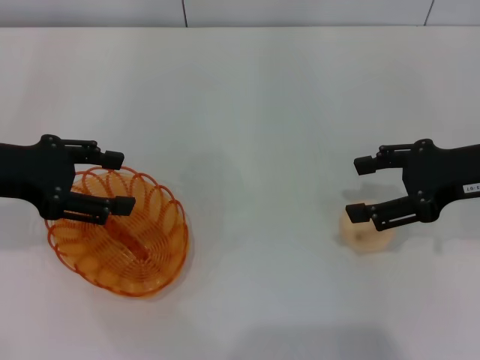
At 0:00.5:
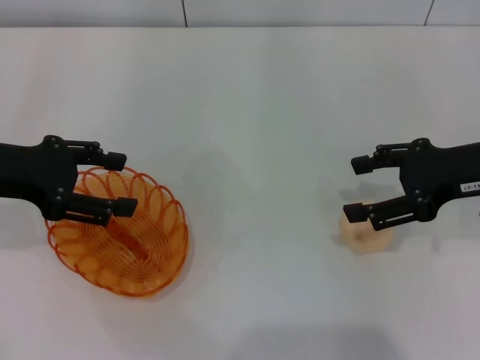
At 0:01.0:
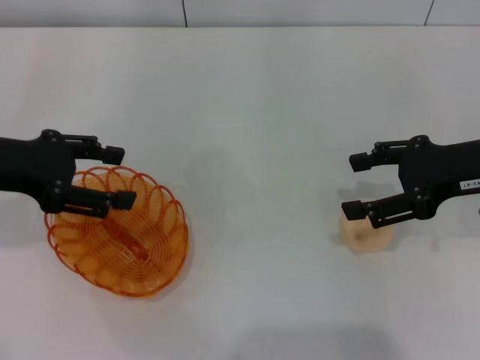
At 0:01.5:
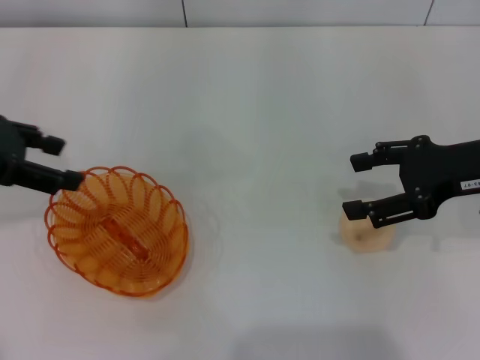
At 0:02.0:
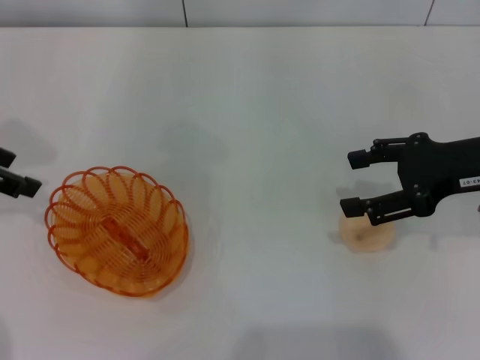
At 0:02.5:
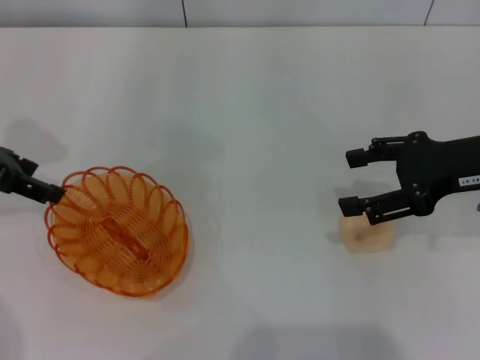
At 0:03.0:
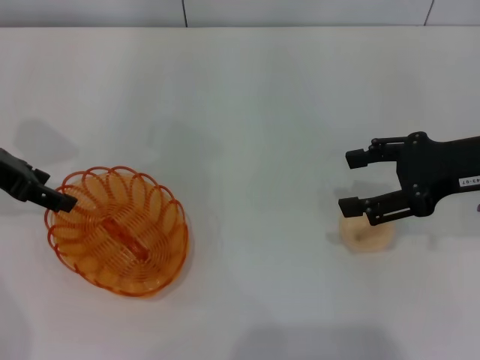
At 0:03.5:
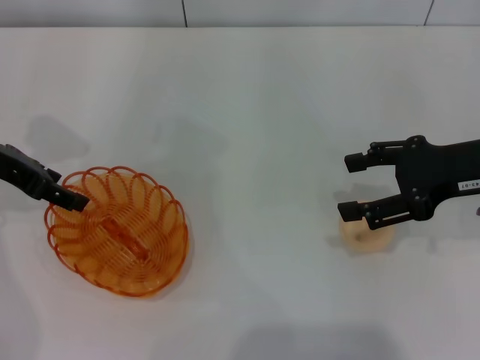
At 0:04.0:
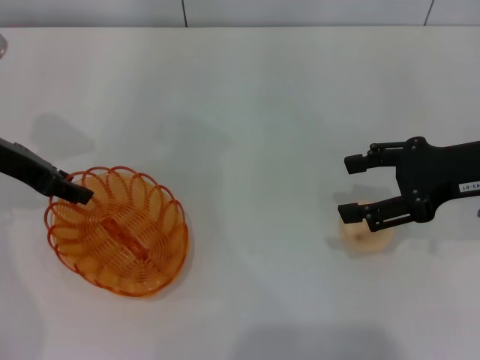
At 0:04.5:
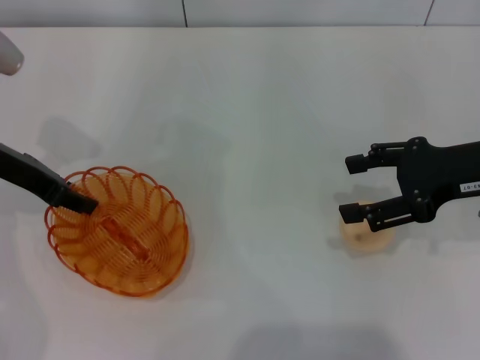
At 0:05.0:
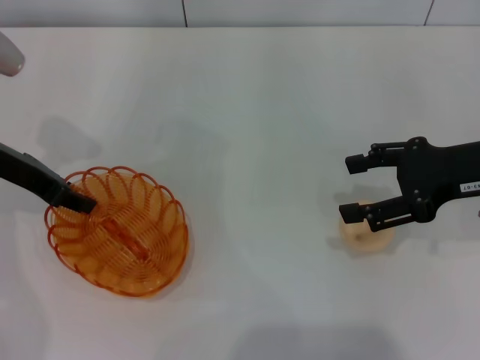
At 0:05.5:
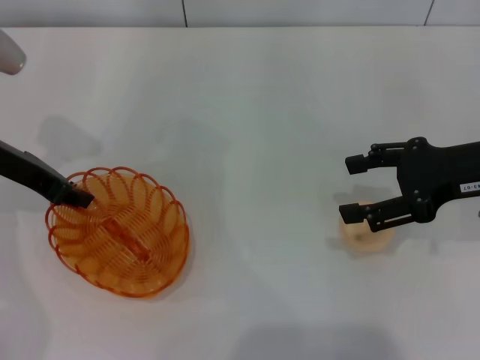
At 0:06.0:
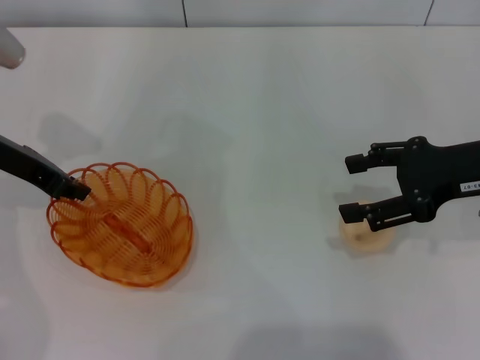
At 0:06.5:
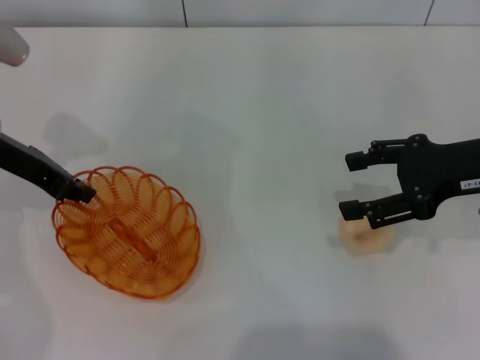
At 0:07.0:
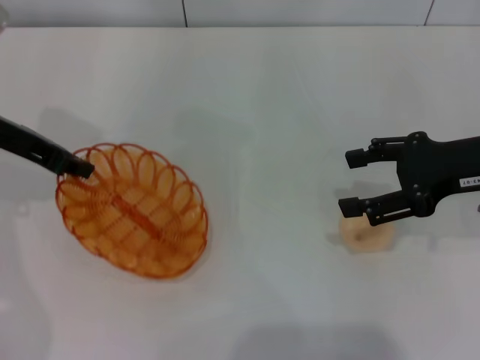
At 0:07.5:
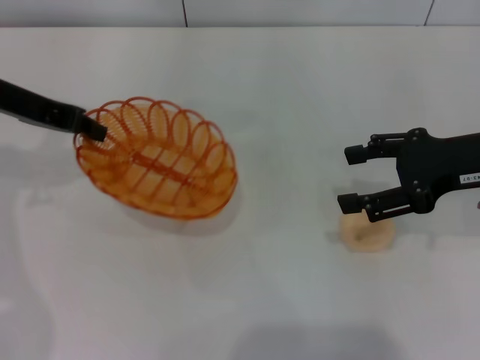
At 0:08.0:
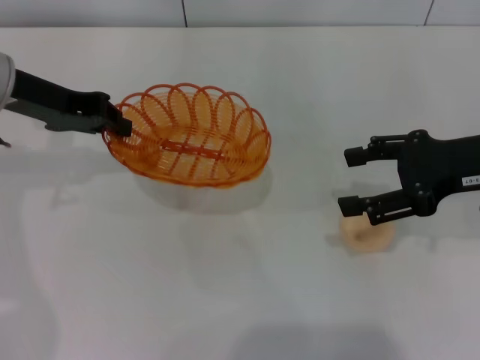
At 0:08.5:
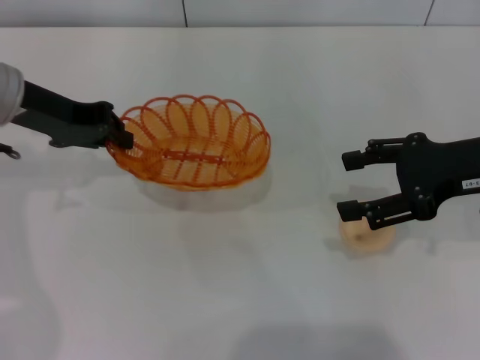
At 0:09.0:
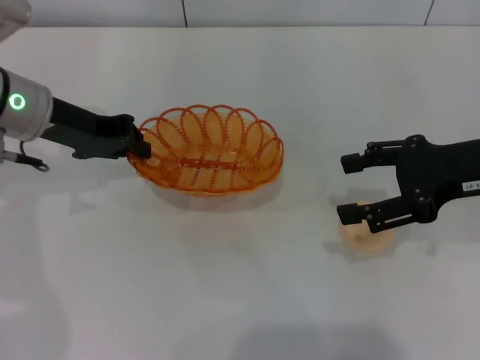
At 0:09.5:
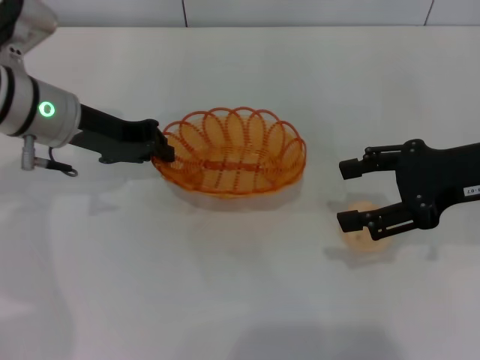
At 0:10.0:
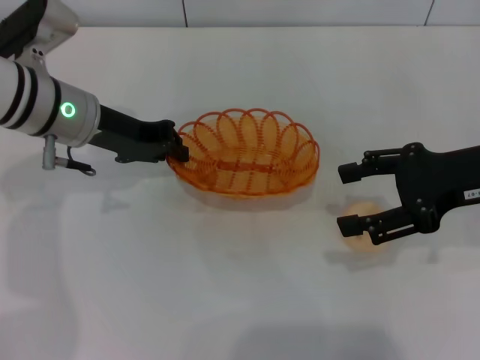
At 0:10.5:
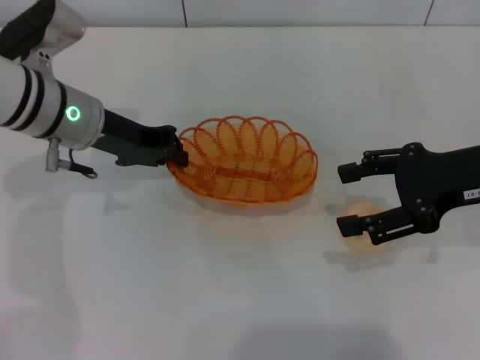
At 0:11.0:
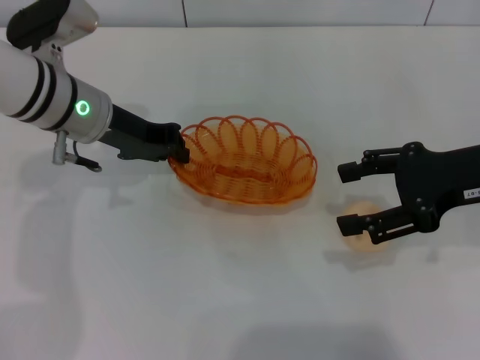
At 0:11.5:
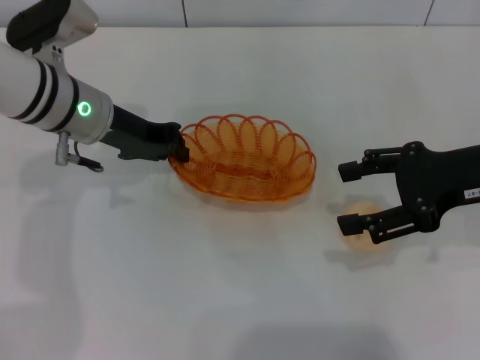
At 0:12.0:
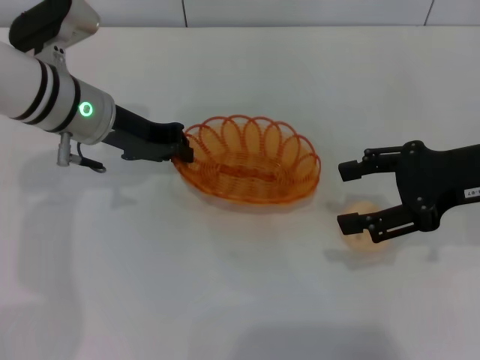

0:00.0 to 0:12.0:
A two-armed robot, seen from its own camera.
Step, 0:00.0 to 0:07.0: Pick up the basket with the left gripper.
0:00.0 to 0:02.0: The left gripper shifts by roughly 5 cm.
0:02.0 to 0:04.0: The left gripper shifts about 5 cm downward.
0:04.0 to 0:06.0: The left gripper closes.
0:06.0 to 0:08.0: The left gripper ends up approximately 5 cm from where it was.
0:08.0 to 0:10.0: The left gripper shifts about 10 cm downward and to the right.
0:10.0 to 0:12.0: The grippers make only small movements.

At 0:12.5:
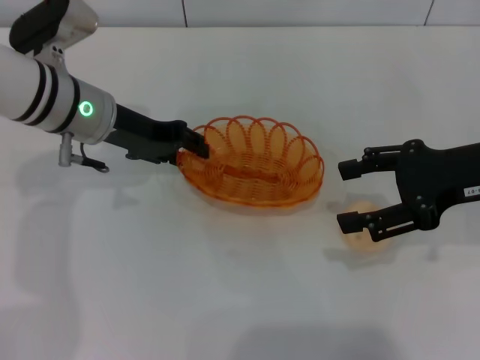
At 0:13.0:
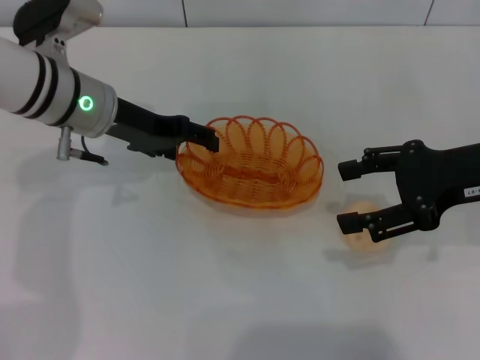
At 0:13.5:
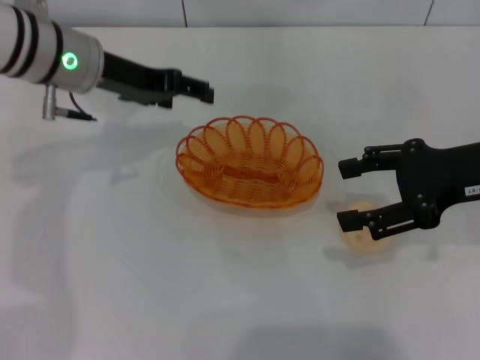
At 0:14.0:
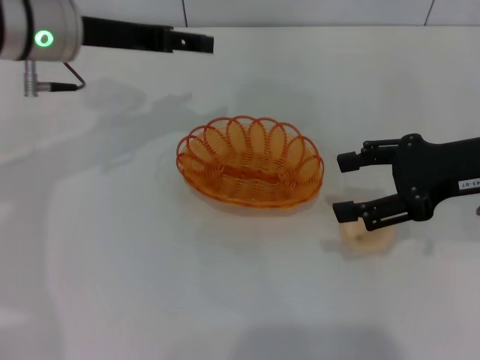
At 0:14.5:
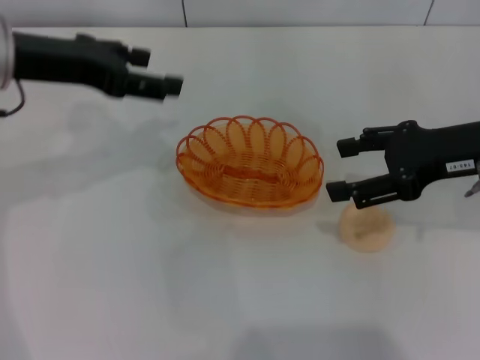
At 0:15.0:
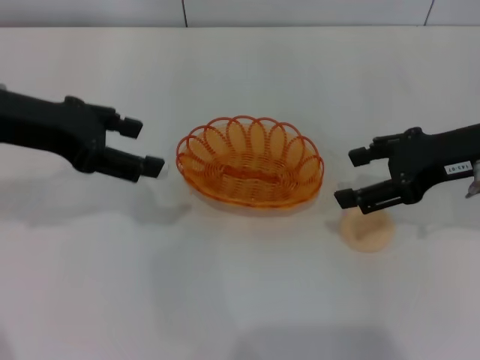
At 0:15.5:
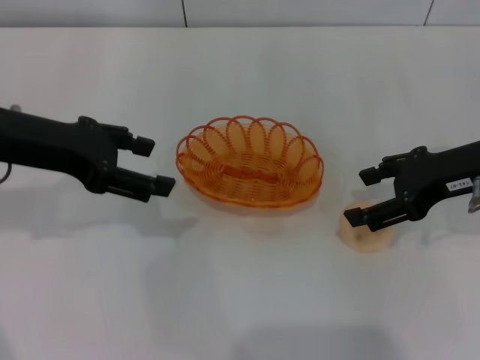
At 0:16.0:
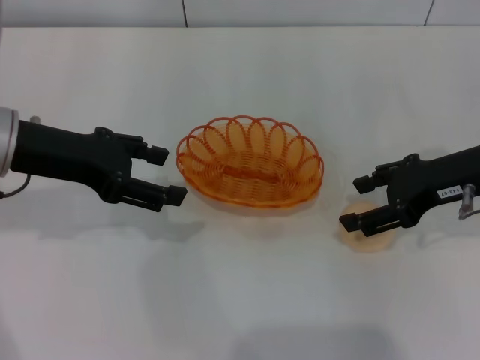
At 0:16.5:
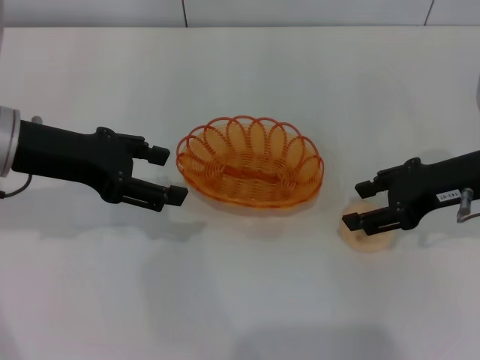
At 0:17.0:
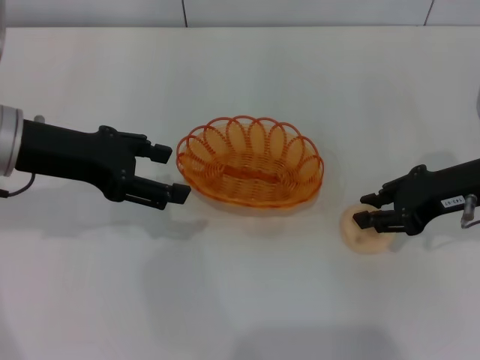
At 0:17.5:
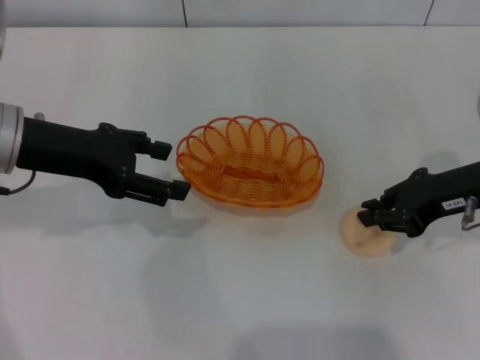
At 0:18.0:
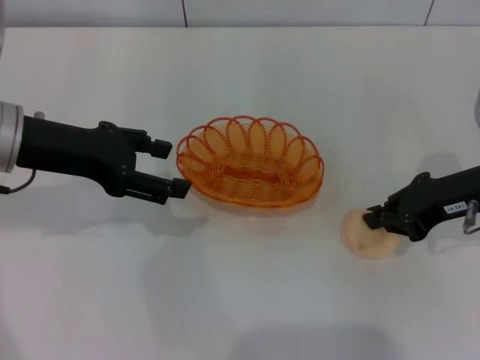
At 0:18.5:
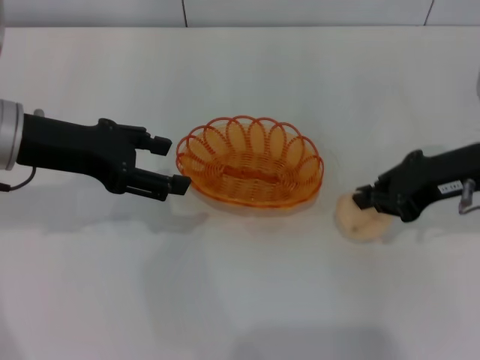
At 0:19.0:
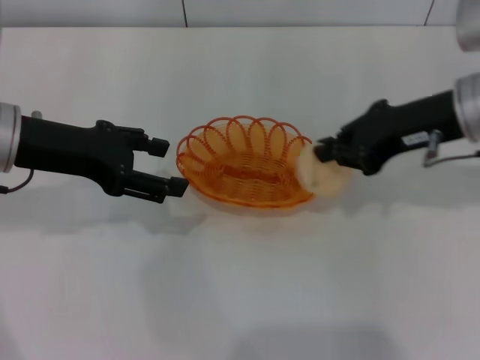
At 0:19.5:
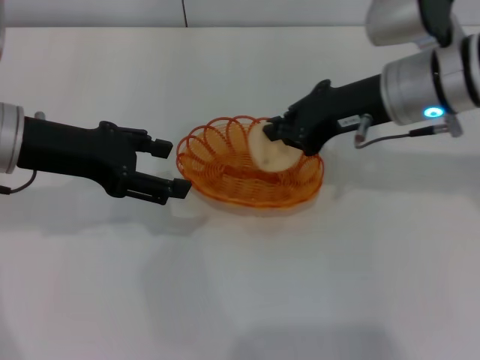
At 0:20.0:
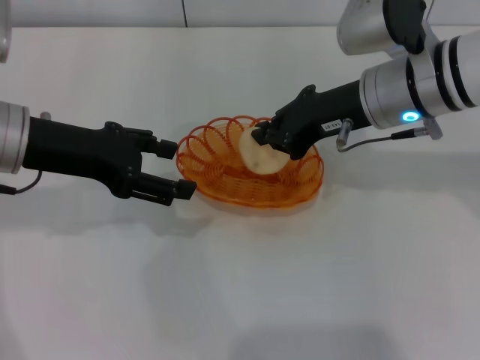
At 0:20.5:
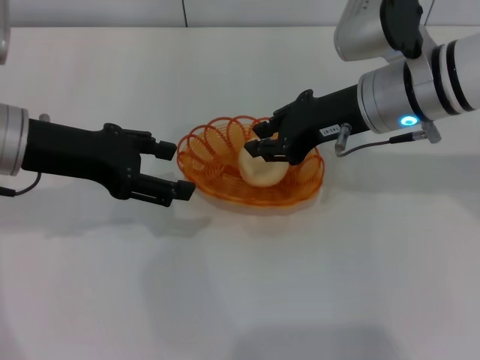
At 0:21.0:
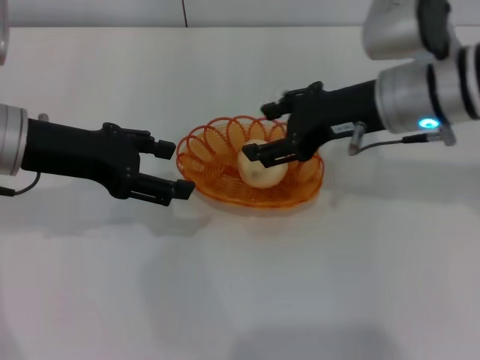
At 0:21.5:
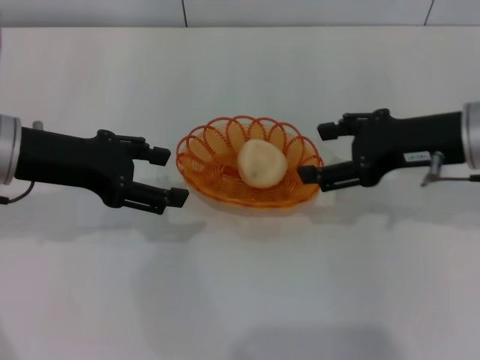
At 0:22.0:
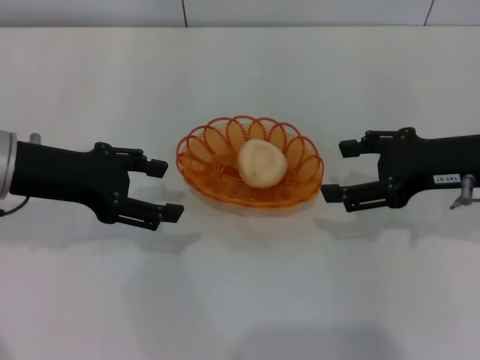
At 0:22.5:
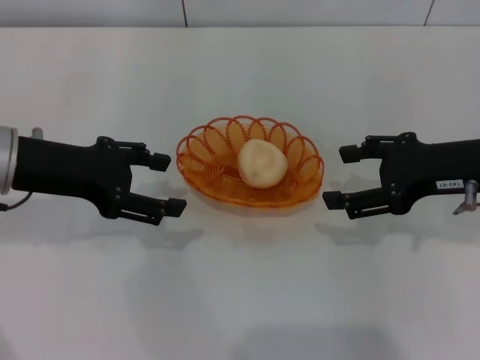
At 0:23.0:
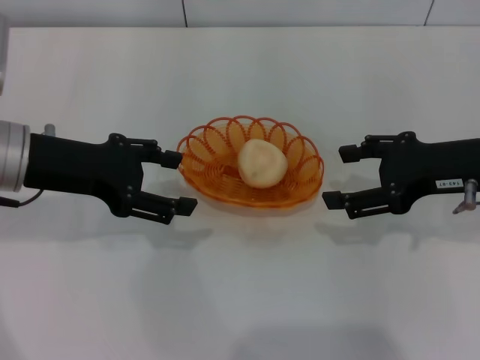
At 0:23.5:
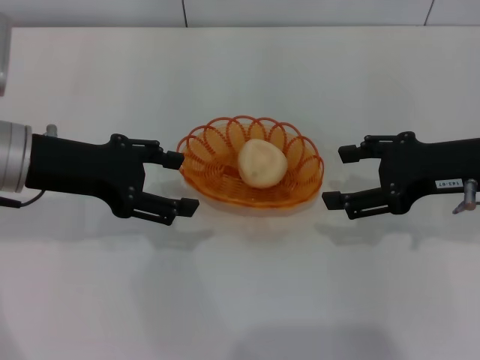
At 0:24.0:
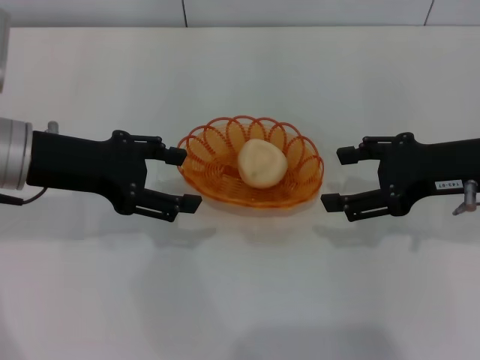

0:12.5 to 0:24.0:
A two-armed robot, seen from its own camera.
Step, 0:14.0 to 0:18.5: Pick up the egg yolk pastry with the right gripper.
Step, 0:19.0 to 0:21.0: Place the egg yolk pastry into the basket with the right gripper.
0:12.5 to 0:14.5: The left gripper travels upward and to the left by approximately 10 cm, and opens up.
0:14.5 to 0:16.5: The left gripper moves some 5 cm.
0:16.5 to 0:18.5: The right gripper closes up.
0:18.5 to 0:20.0: The right gripper goes approximately 10 cm to the left.
0:20.0 to 0:22.0: The right gripper shifts about 10 cm to the right and backward, and opens its fingers.
0:22.0 to 0:24.0: The grippers move only a little.
